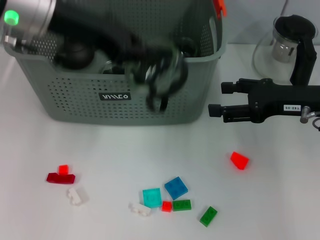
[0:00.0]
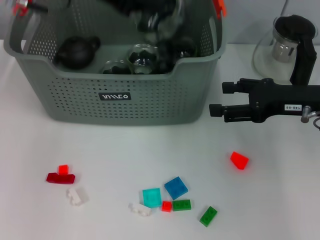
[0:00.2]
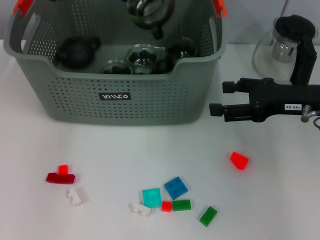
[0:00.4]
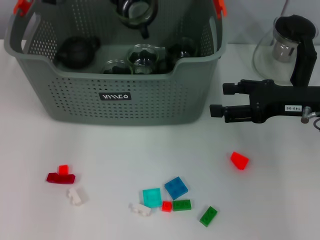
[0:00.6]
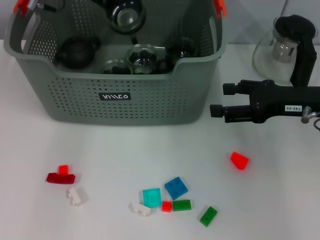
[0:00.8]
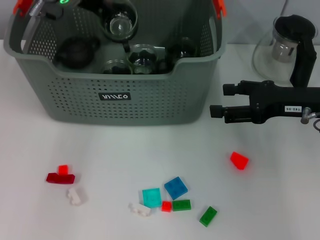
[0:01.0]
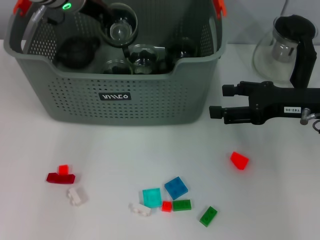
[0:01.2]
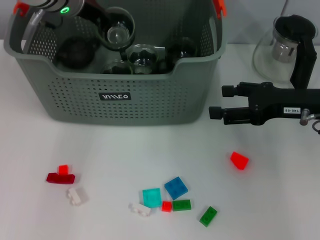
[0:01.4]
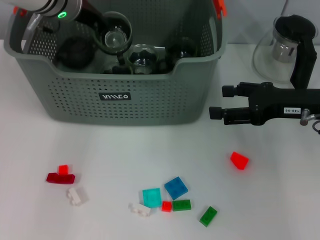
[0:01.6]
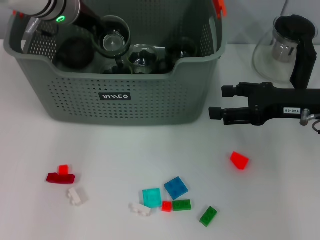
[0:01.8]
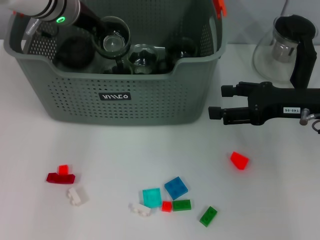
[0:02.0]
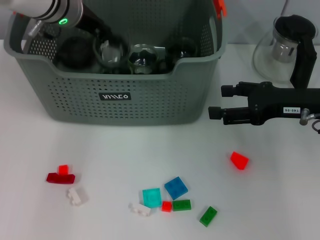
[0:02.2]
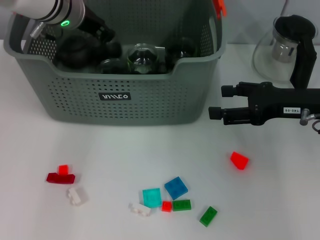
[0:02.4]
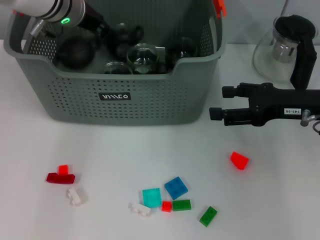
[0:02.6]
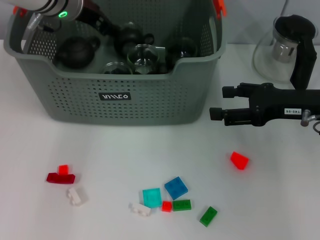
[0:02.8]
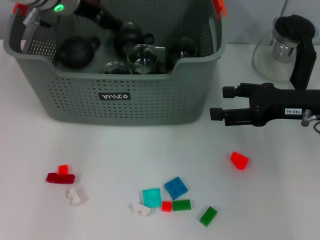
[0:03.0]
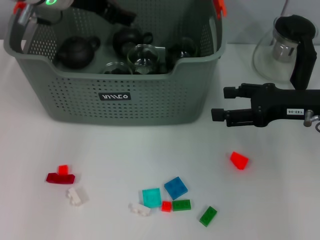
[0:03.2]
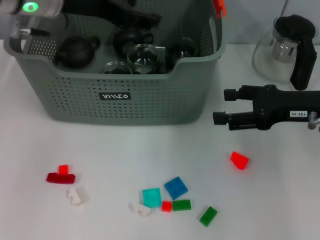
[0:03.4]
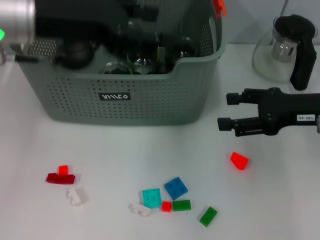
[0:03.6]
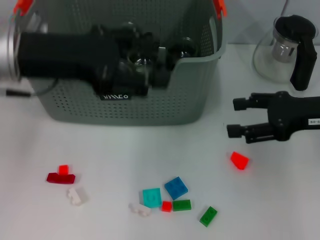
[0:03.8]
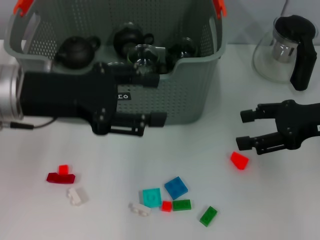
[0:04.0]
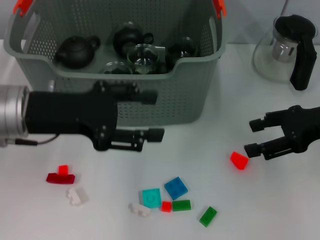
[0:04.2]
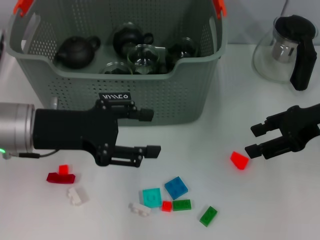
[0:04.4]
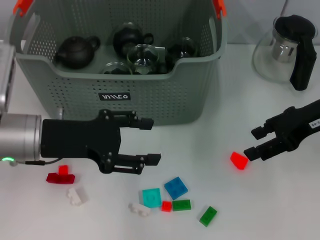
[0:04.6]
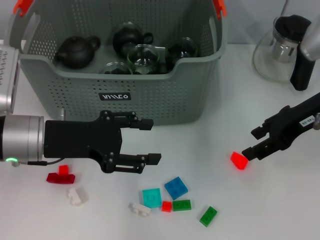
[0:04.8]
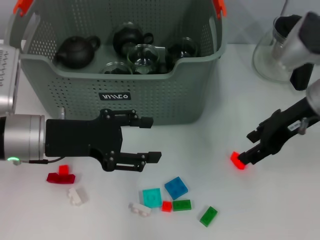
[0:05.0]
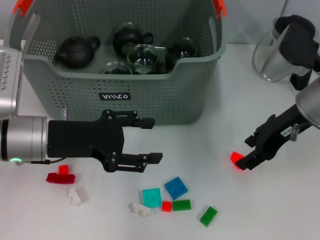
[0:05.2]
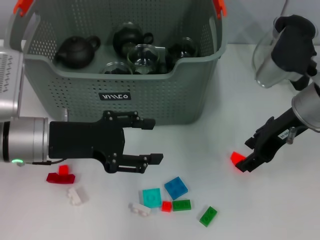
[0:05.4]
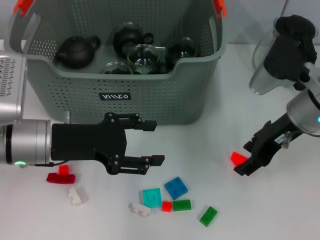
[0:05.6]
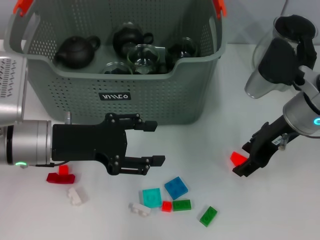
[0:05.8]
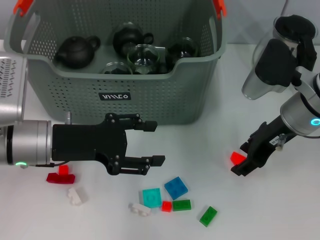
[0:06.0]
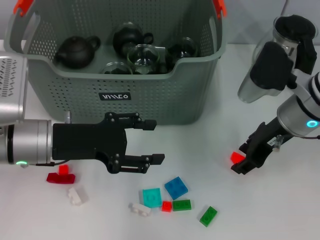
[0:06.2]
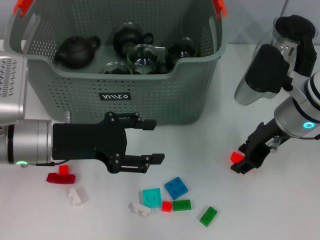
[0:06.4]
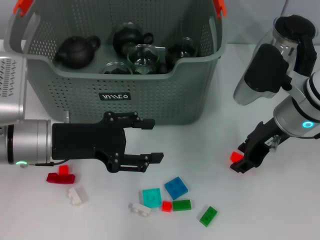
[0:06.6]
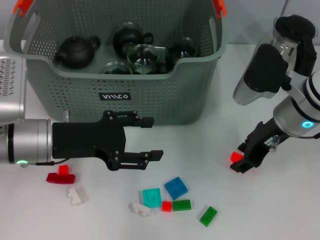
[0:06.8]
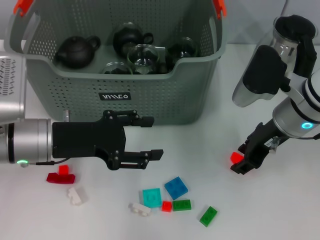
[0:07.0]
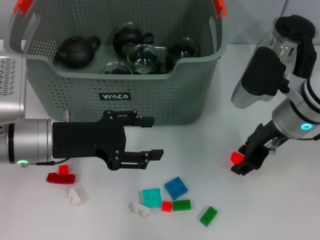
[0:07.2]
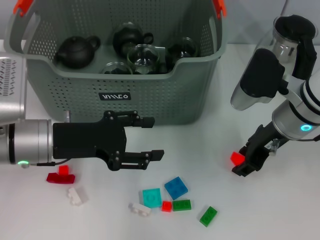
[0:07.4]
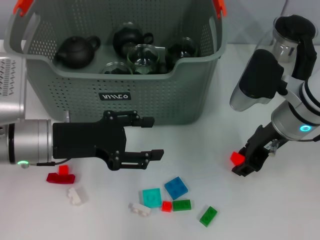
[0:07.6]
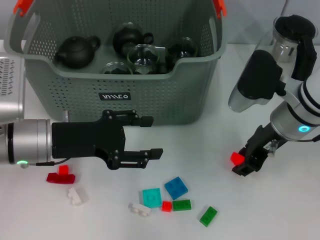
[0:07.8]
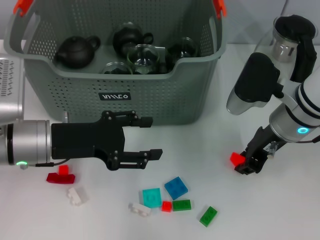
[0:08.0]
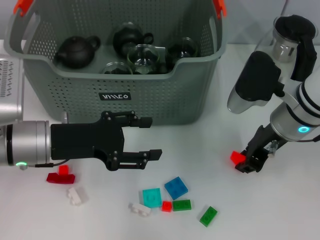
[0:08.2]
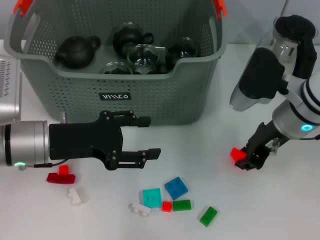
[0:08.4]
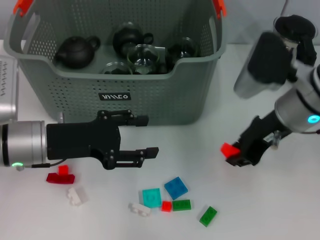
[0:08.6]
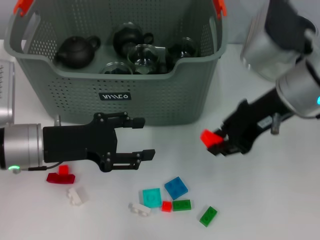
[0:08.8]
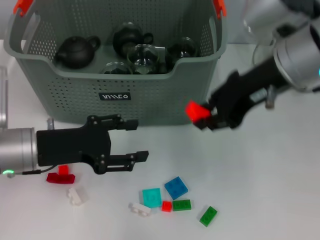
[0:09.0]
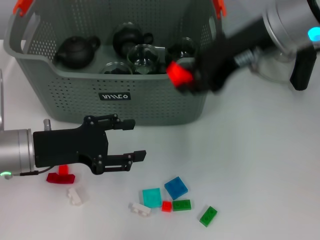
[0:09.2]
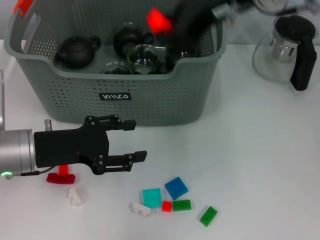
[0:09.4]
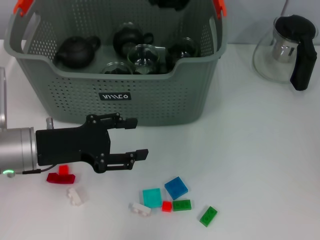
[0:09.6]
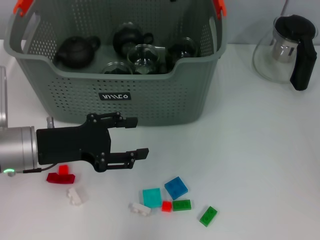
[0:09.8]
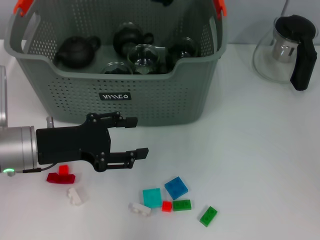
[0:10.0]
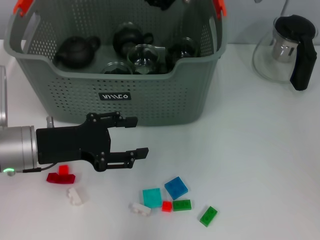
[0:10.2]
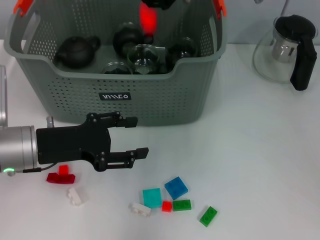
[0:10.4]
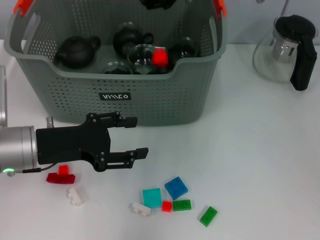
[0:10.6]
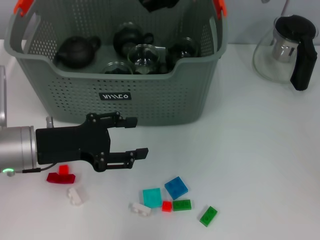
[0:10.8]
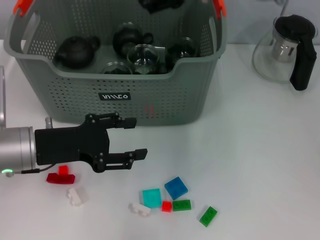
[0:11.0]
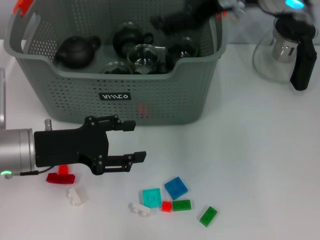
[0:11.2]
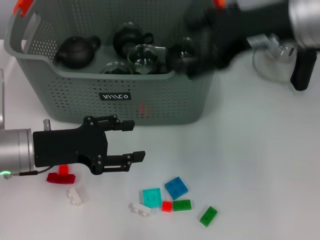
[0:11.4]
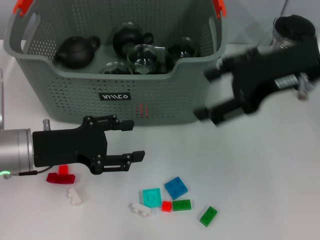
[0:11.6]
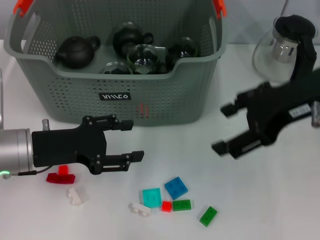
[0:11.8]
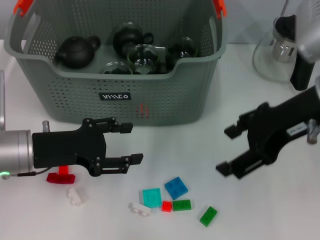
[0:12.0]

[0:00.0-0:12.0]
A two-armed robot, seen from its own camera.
Task of the whole recording: pick up the teacup on the table and place it into the storage bin, pick up the block on the table and place it into the storage bin.
Step, 0.0 to 2.4 s: Place the cup in the storage box with left gripper.
Step, 2.6 to 8.0 s: Grasp the red block with right gripper.
Step, 8.2 to 10.6 s: Place the red block in the storage box with right gripper.
0.0 to 1.6 s: The left gripper shifts approximately 10 cm forward and downward.
1.6 to 3.0 s: The left gripper opens its fingers.
3.0 to 4.4 s: The left gripper goes roughly 15 cm backward and downward.
4.4 to 6.0 s: The right gripper travels to the left by approximately 10 cm, while the left gripper is displaced downward by about 5 cm.
6.0 to 7.6 s: The grippers move only a little.
7.6 to 9.0 s: The right gripper moves upward, some 15 cm.
9.0 to 10.4 s: The right gripper moves forward and to the left, roughly 10 cm.
10.4 to 12.0 s: The right gripper goes about 15 cm backward and to the right, and opens its fingers.

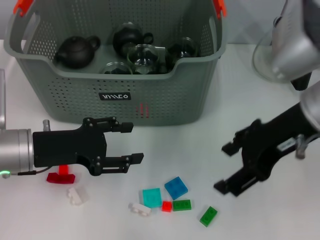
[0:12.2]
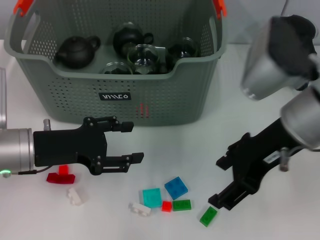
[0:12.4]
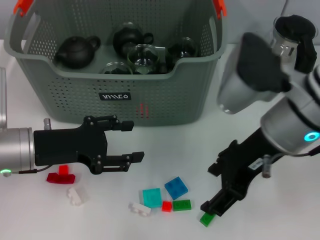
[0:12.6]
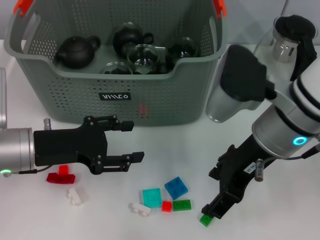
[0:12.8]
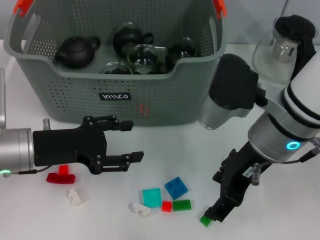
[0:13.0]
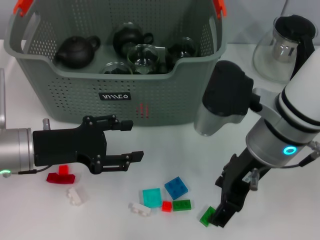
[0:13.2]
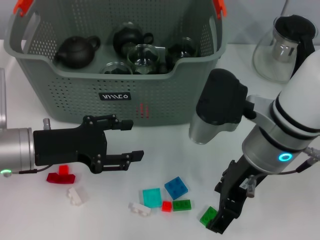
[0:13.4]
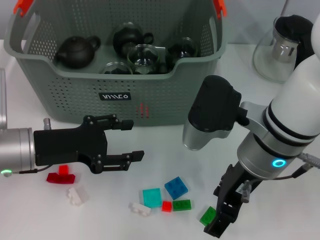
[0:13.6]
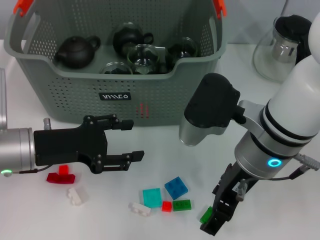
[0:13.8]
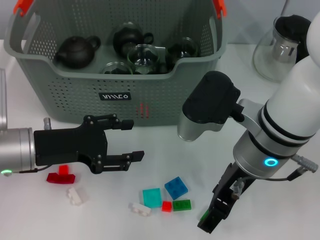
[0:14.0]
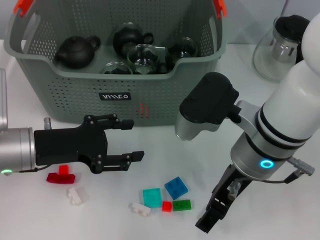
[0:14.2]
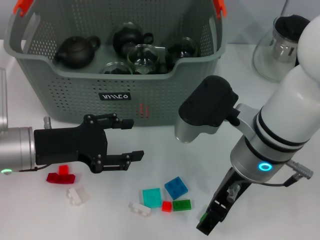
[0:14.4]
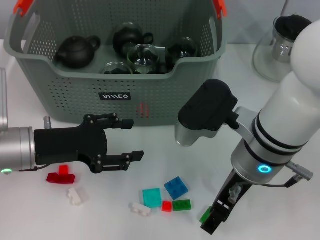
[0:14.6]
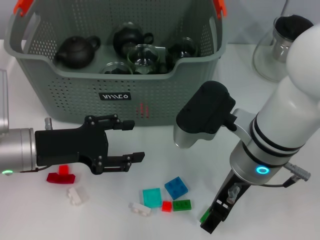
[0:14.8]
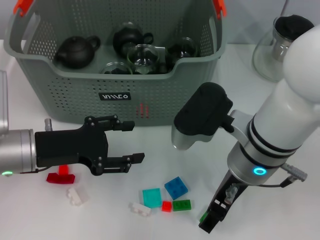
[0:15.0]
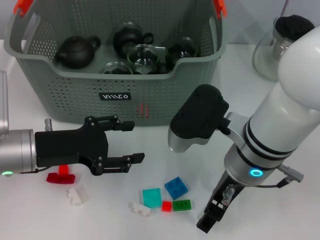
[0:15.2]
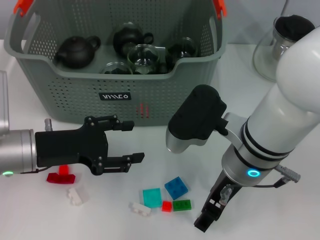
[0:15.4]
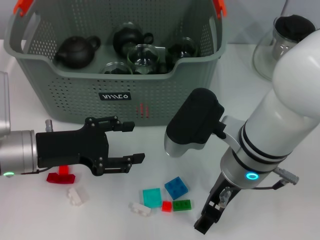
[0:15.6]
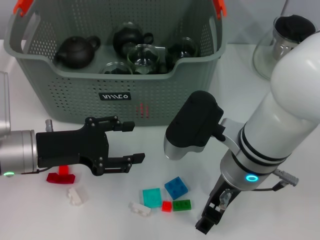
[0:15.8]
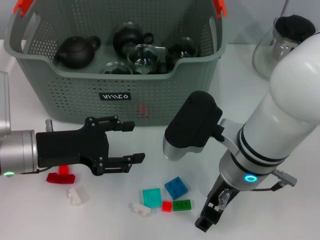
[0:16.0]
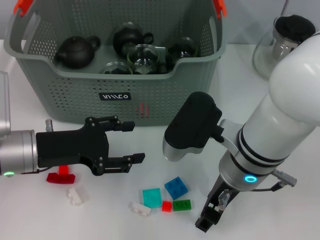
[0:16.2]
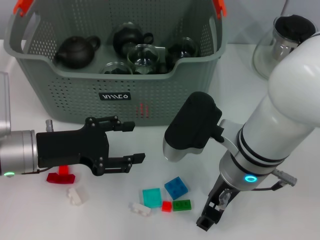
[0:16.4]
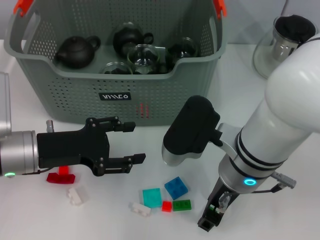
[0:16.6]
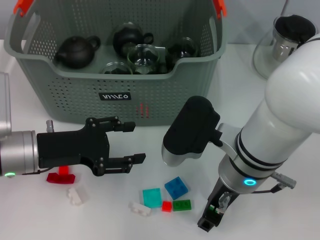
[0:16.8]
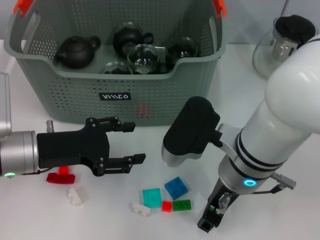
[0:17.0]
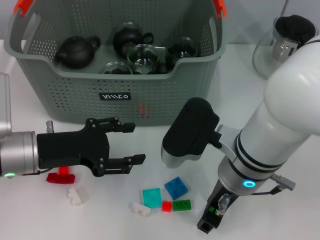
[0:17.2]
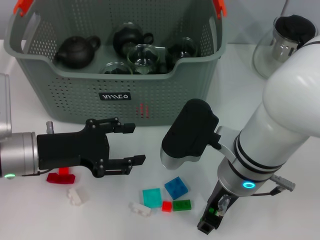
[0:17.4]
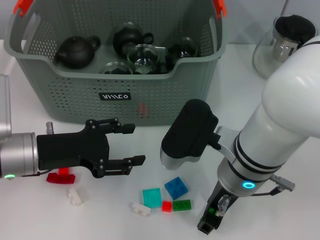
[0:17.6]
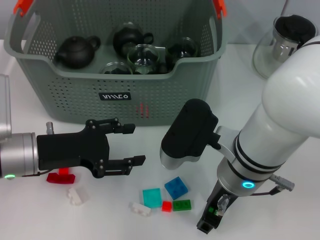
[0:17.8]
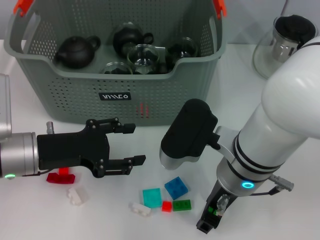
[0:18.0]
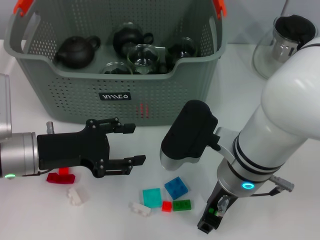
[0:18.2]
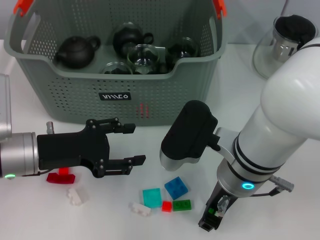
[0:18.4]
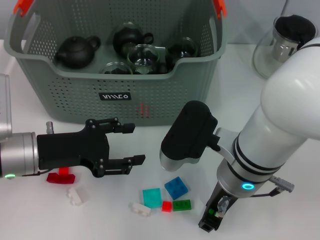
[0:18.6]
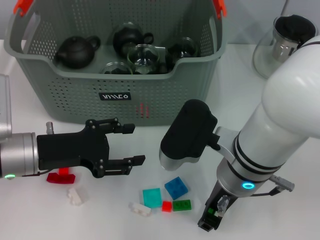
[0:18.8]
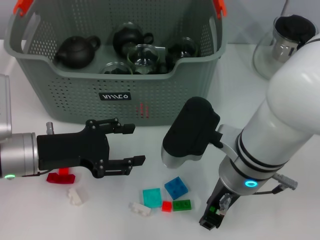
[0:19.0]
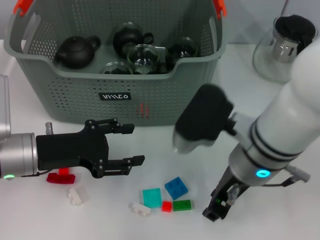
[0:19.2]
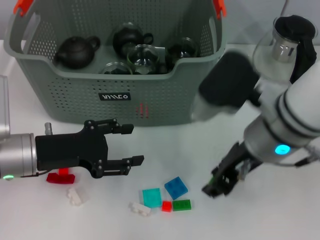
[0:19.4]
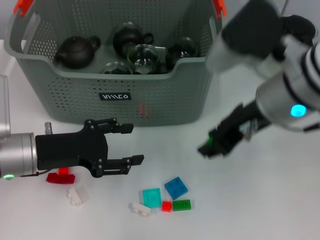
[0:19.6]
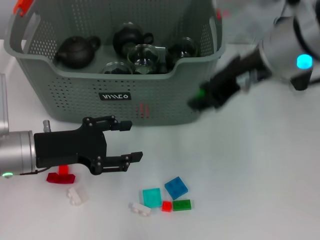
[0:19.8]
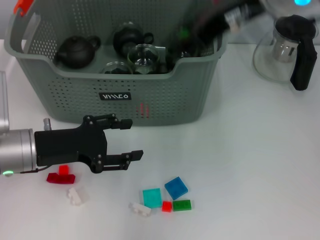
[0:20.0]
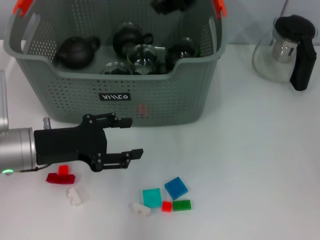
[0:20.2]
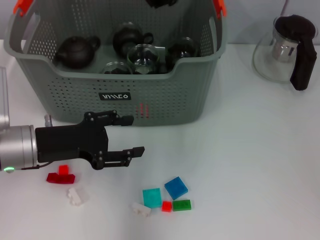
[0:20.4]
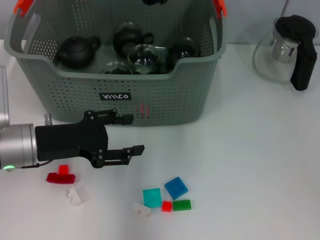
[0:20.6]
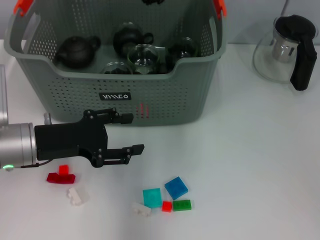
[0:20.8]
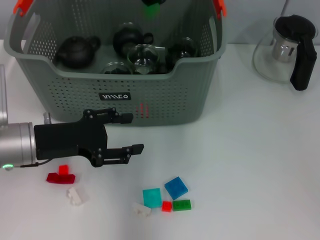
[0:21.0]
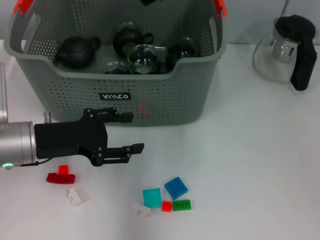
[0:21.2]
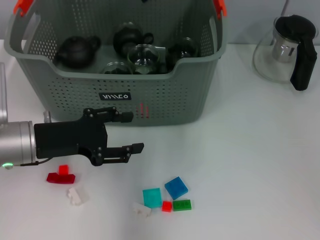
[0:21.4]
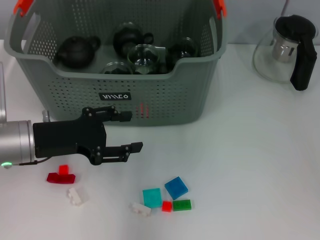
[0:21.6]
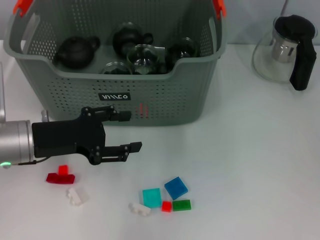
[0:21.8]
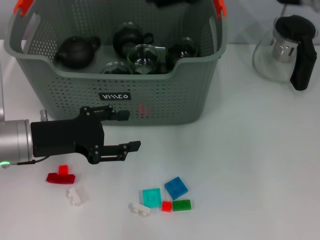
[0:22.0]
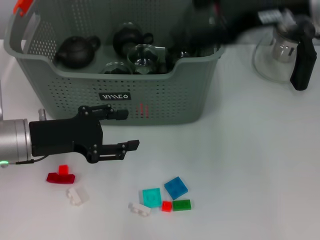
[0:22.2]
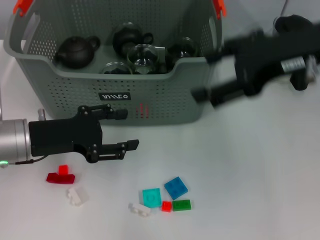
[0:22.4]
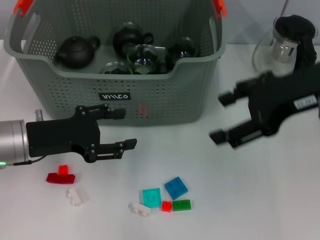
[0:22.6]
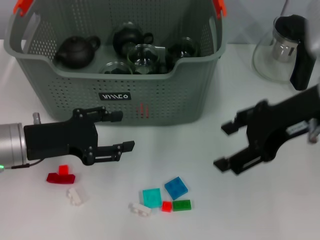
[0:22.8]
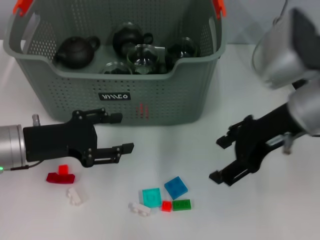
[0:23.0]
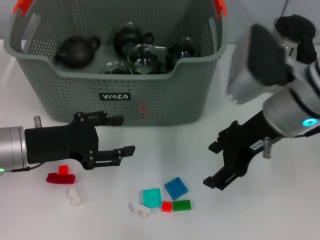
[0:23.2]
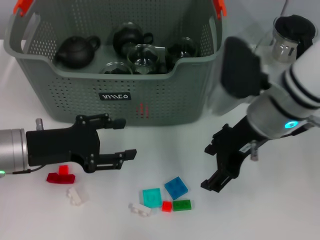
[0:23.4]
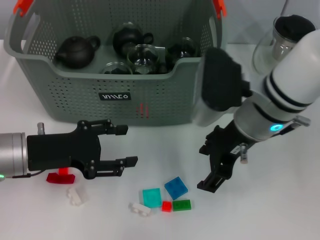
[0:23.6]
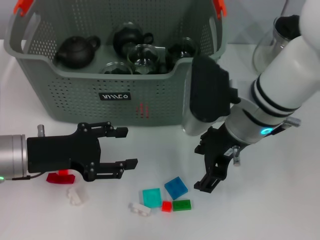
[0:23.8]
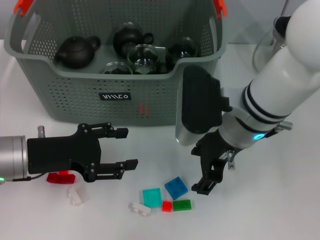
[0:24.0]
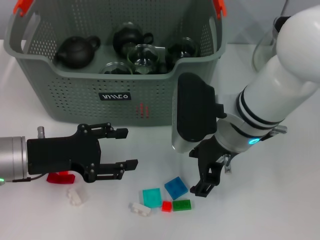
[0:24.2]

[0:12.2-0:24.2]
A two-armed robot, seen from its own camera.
Task of the whole recording: pick up the teacup on the table and place it into the storage bin, pick up the block on the table and place it into the storage bin.
Step, 12.2 to 18.6 s: Grasp the green block with right gripper.
Step, 18.8 to 21.2 s: Place the green block in the storage box with right gripper.
12.2 to 13.8 s: The right gripper moves to the left and downward, roughly 10 cm.
13.8 to 16.6 s: The grippers stay close to where they were, moving slightly.
16.6 to 18.2 s: Both grippers stay about where they are.
18.2 to 19.8 s: The right gripper travels upward by about 15 cm.
19.8 to 21.2 s: The right gripper goes some 10 cm forward and to the left.
21.2 to 22.6 s: The right gripper travels to the right and backward by approximately 20 cm, and opens its fingers.
22.6 to 24.2 s: The right gripper goes roughly 15 cm to the left and downward.
